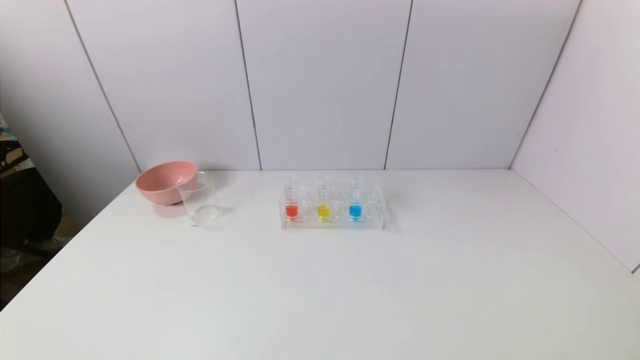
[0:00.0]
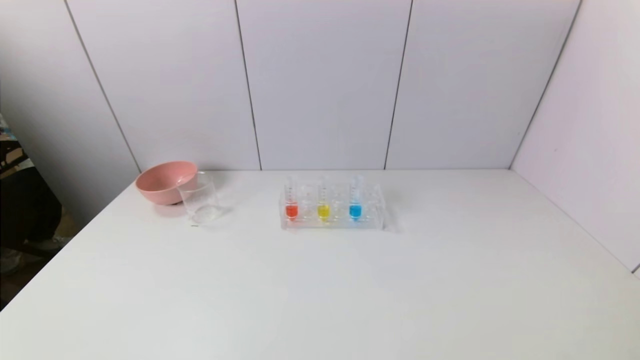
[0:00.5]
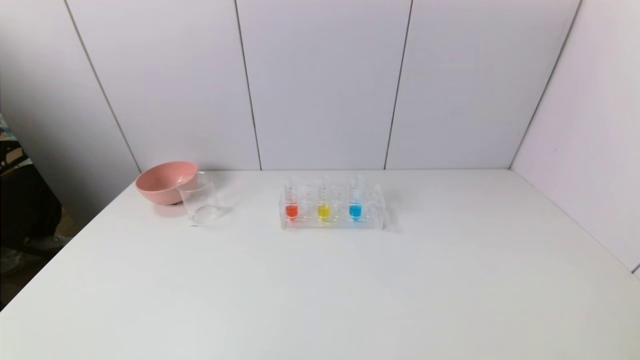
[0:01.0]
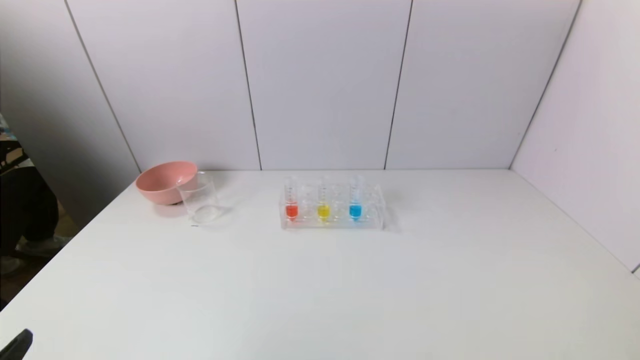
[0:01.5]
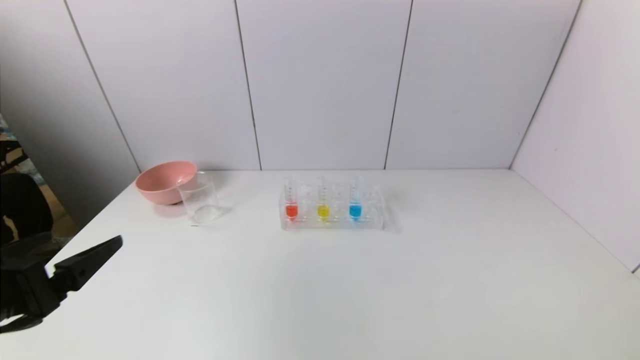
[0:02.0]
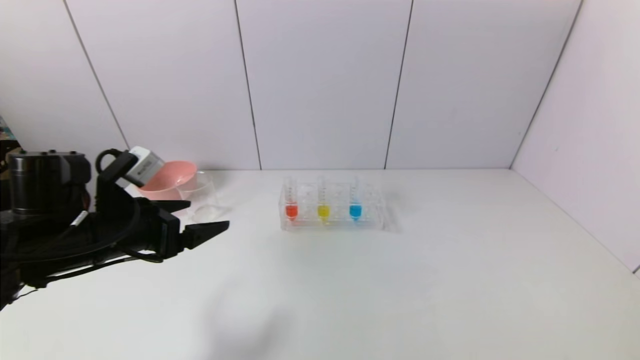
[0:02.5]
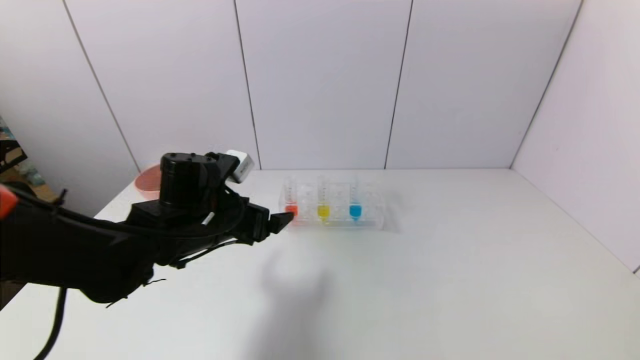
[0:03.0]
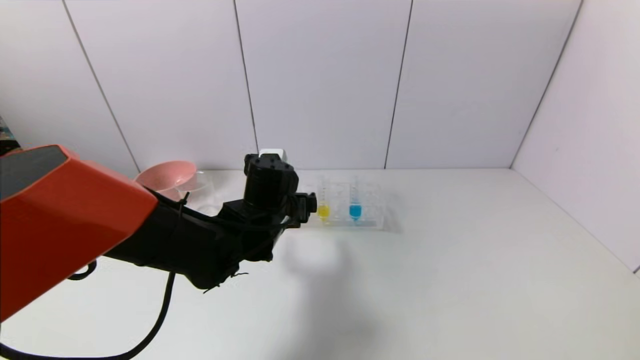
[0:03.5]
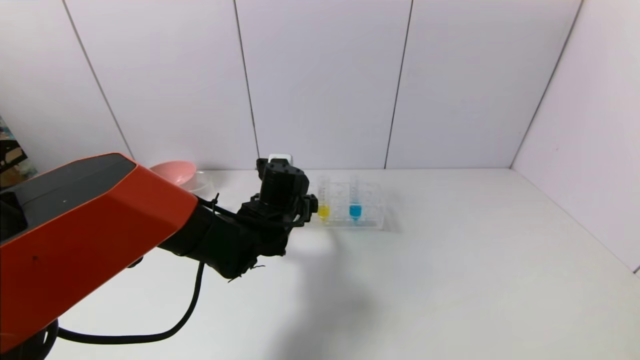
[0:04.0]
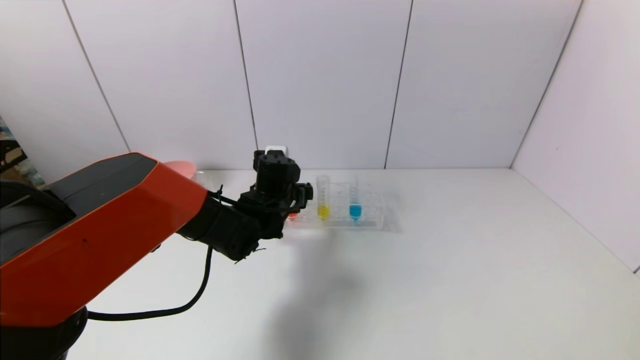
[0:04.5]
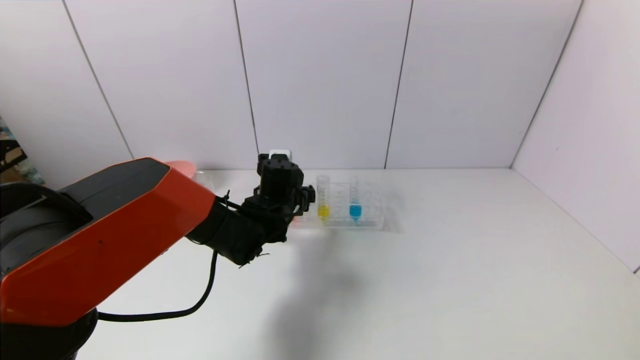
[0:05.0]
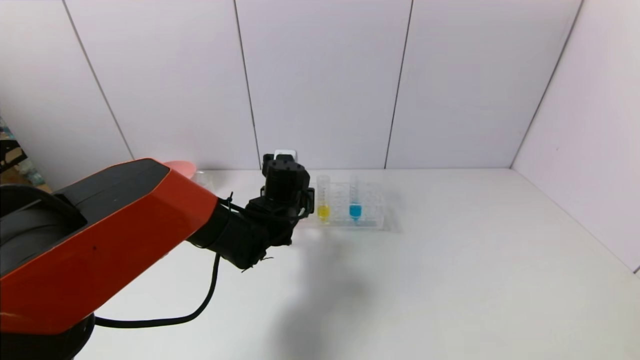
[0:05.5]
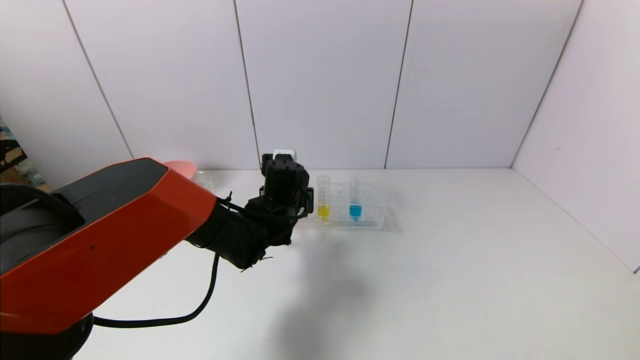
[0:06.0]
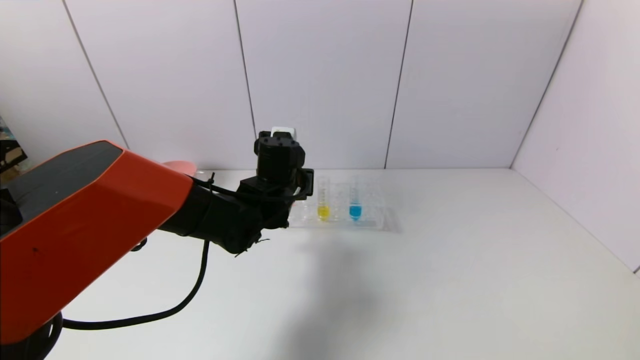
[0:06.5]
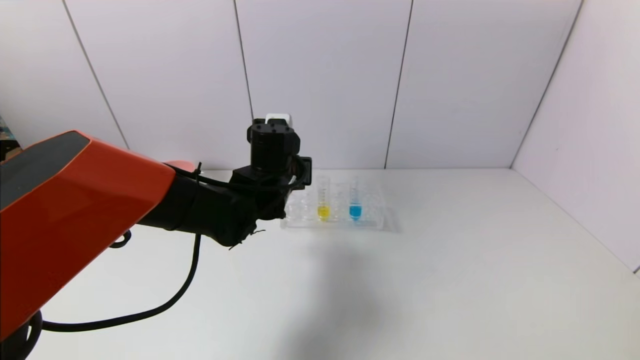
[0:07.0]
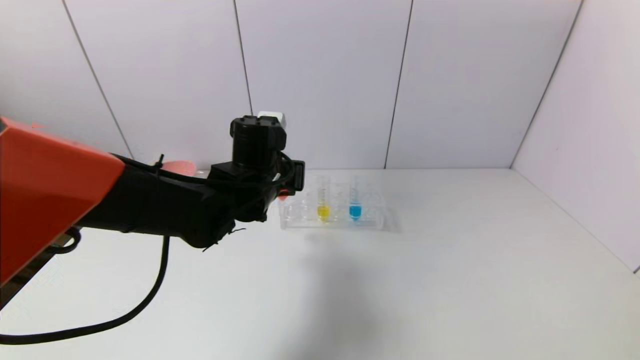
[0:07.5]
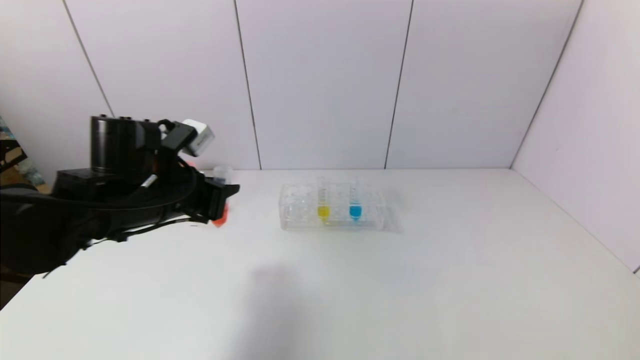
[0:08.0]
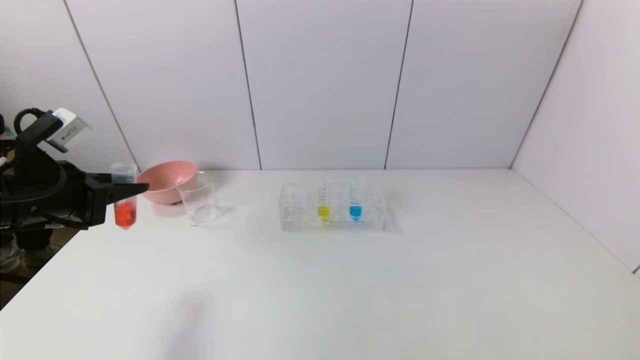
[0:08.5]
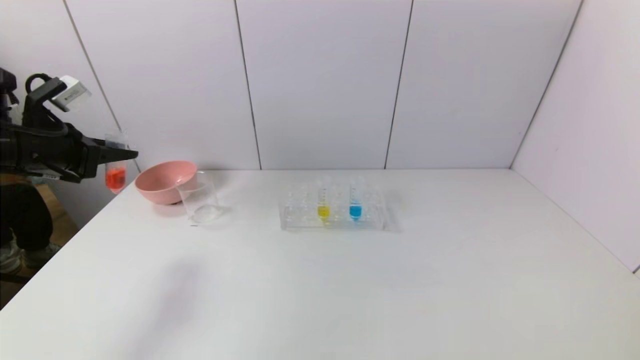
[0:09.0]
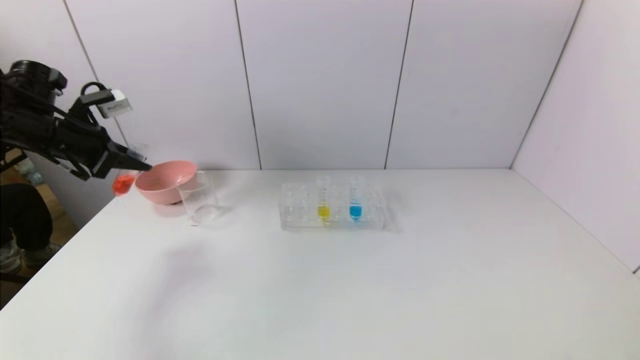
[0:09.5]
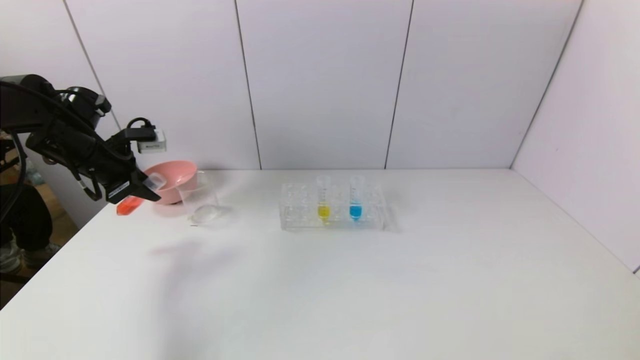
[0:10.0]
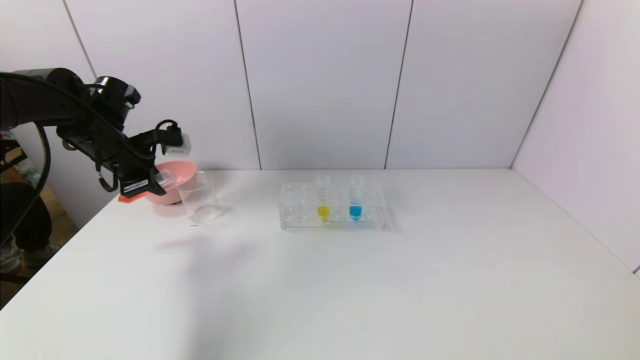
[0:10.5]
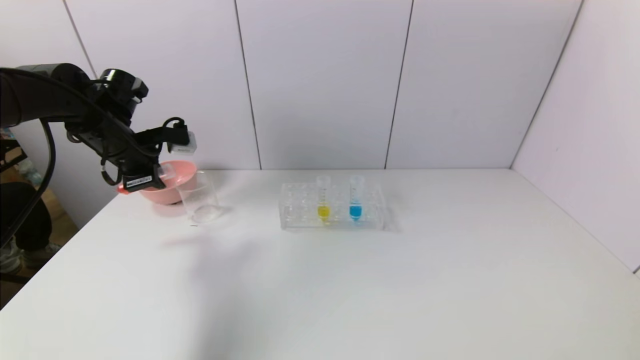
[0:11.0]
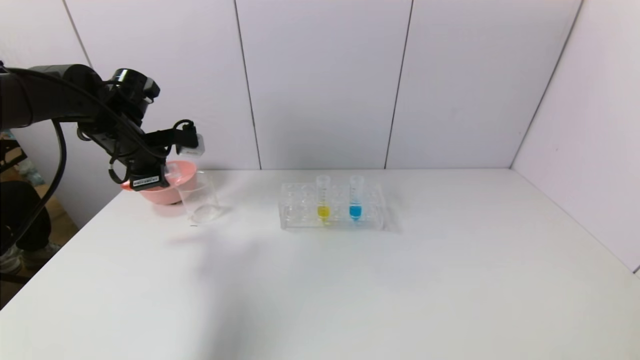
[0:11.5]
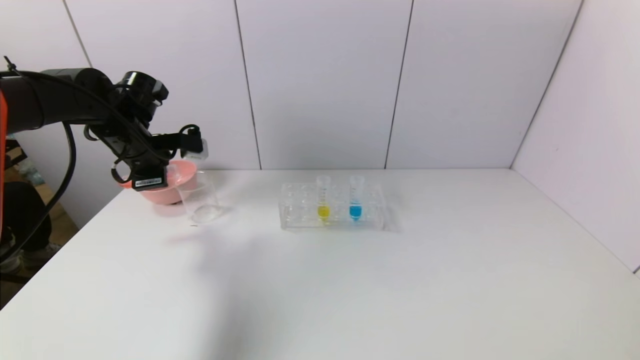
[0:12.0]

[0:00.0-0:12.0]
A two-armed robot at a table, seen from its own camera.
Task of the whole recording: pick up the test tube with red pigment and the test tube with blue pigment by grippers and pour them into the container.
Step, 0:00.0 to 0:05.5: Grasp the red reagent with the left gripper.
0:00.0 to 0:02.0: The left gripper shifts roughly 20 cm forward and upward.
0:02.0 to 0:04.0: The left gripper moves to the right and forward, roughly 30 cm.
0:04.0 to 0:06.0: The left gripper closes its fingers.
0:06.0 to 0:08.0: The left gripper heads to the left, backward and upward, covering roughly 20 cm.
0:08.0 to 0:10.0: The left gripper heads to the left and forward, covering roughly 20 cm.
0:10.0 to 0:12.0: The left gripper moves to the right, about 5 cm.

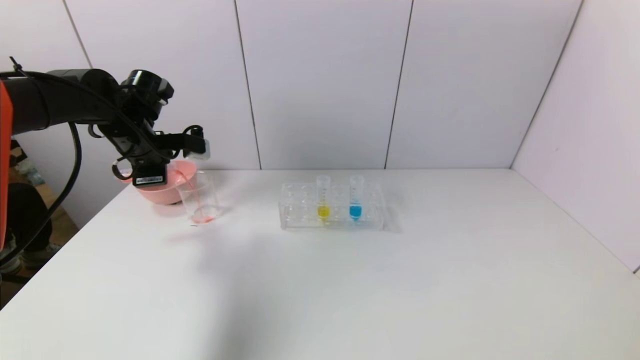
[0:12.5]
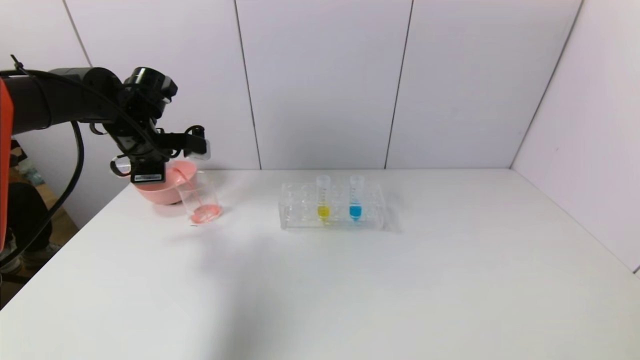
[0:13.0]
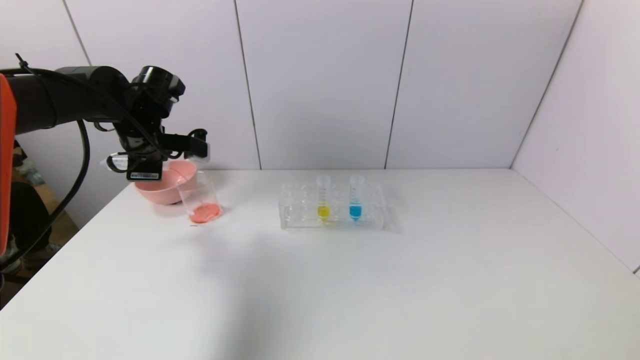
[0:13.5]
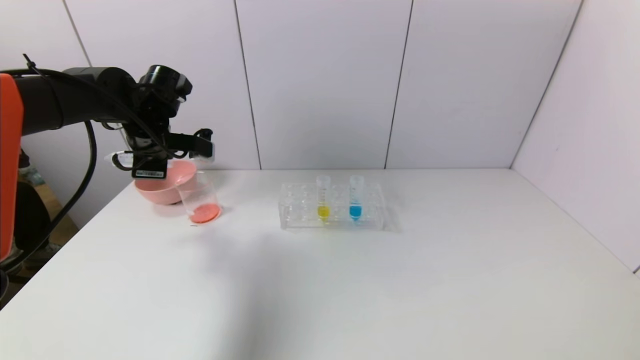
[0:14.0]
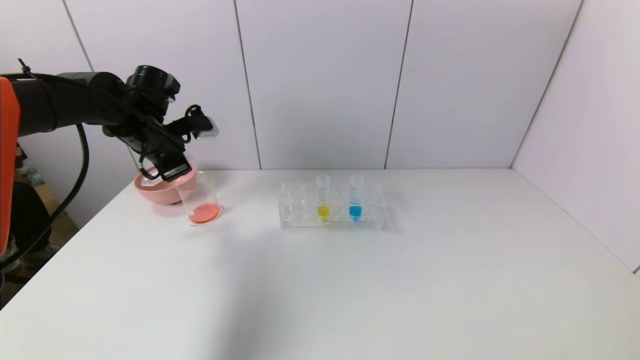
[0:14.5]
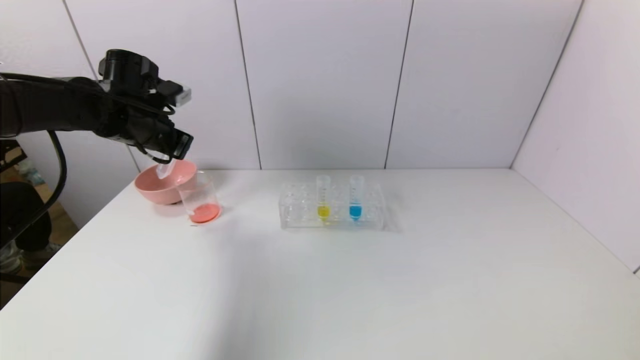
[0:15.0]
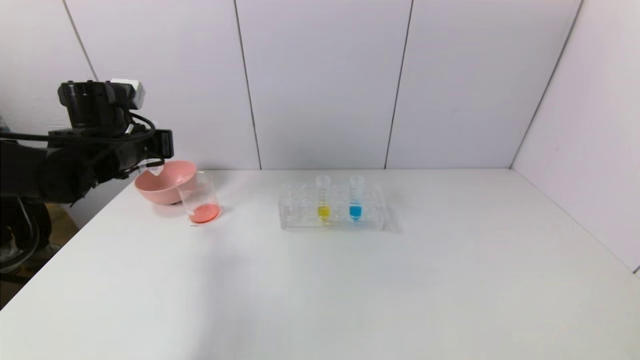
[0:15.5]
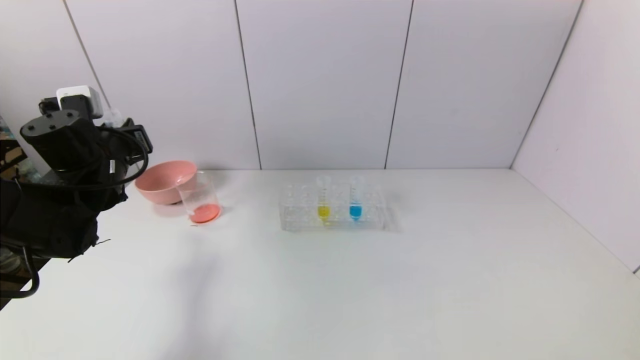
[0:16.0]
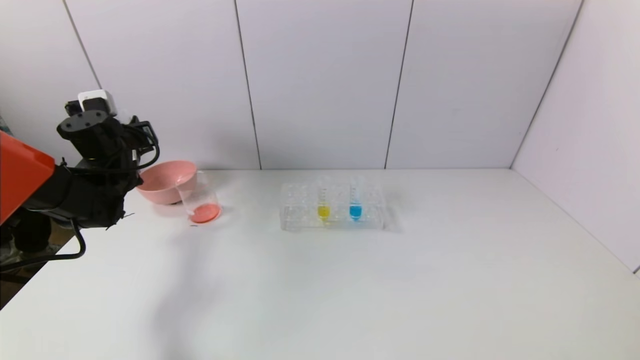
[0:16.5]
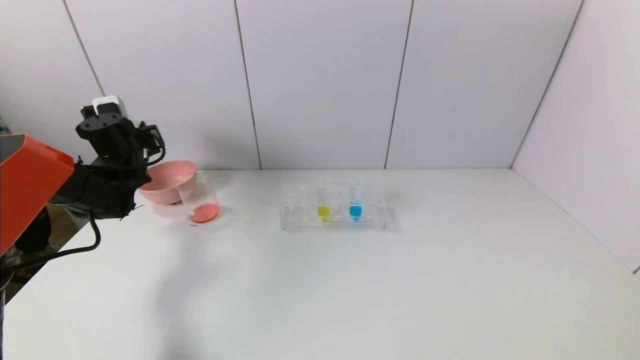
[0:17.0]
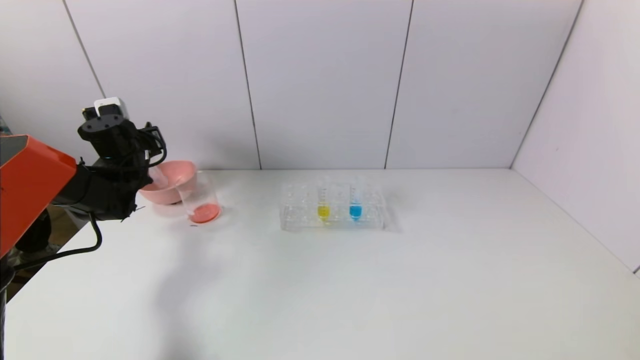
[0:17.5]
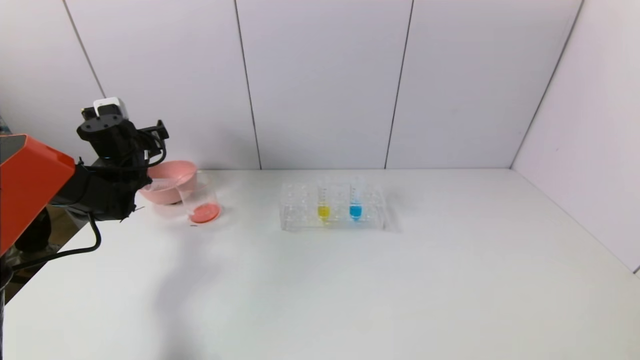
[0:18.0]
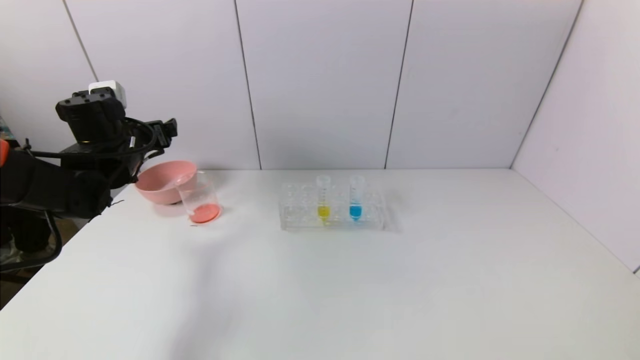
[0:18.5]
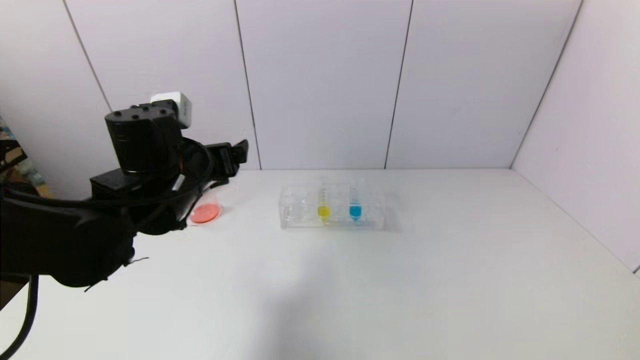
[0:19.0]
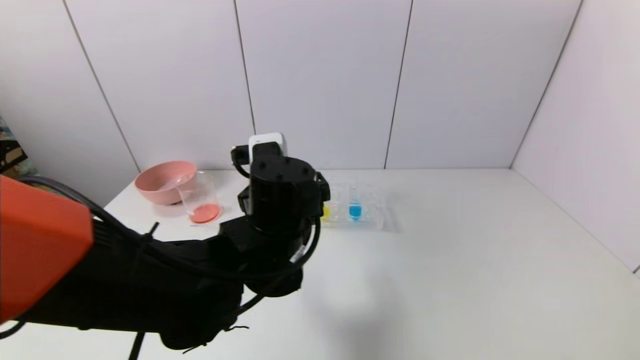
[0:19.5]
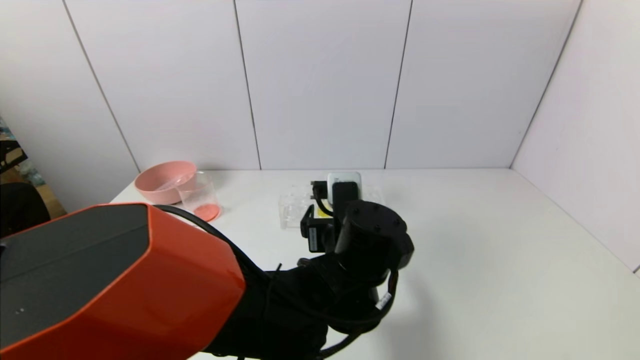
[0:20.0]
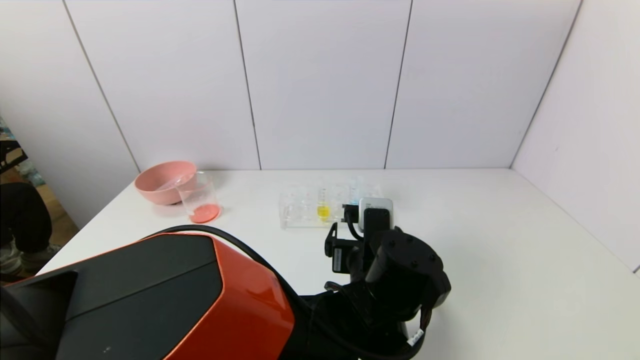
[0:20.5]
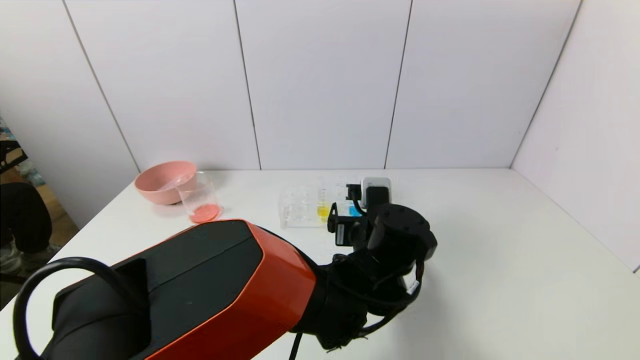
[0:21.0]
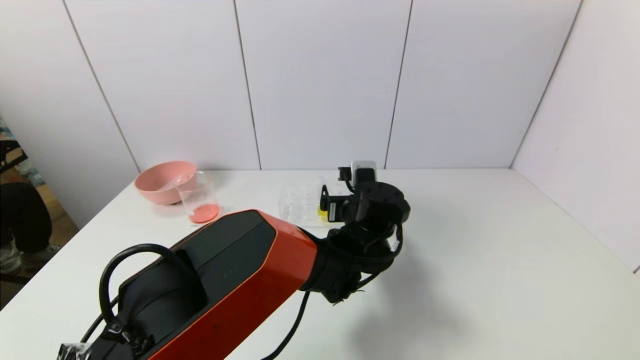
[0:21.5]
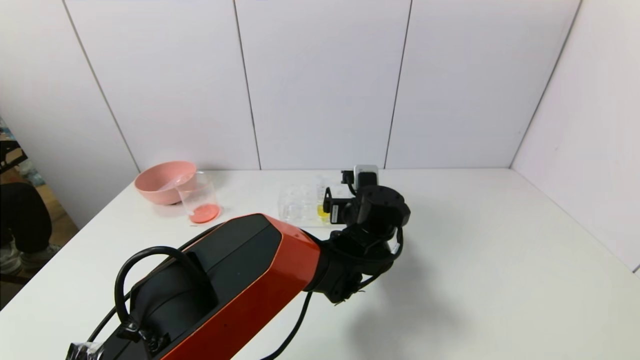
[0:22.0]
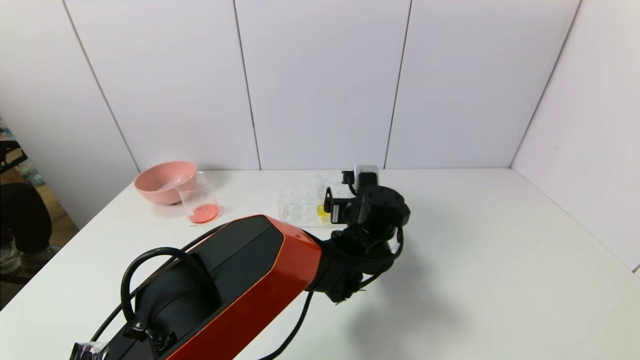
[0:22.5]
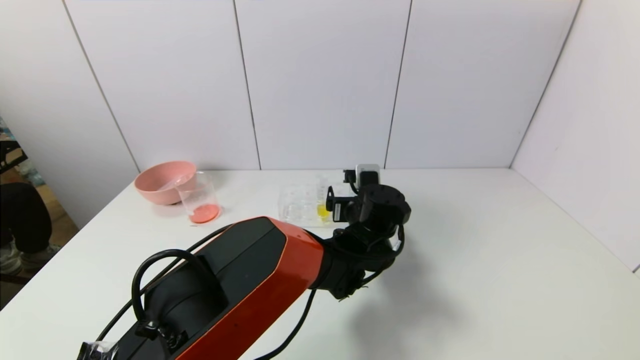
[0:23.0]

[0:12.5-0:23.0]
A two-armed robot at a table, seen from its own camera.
Task of the whole recording: pick up the test tube with red pigment and the test tube with blue pigment by grippers and pour them into the container.
Step, 0:14.5 to 0:18.0: Place the test tube into the bowl with the left gripper.
0:14.5 to 0:16.5: The left gripper travels to the left and downward by approximately 10 cm.
0:16.5 to 0:19.0: The left gripper travels to the right and backward by roughly 20 cm, and opens.
0:19.0 to 0:21.0: The left gripper shifts about 30 cm to the right and downward.
0:21.0 to 0:23.0: The left gripper moves forward, approximately 10 cm.
